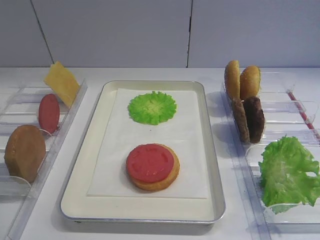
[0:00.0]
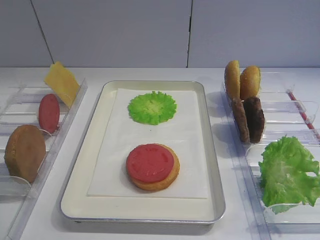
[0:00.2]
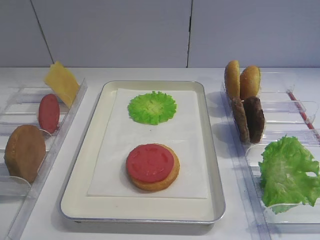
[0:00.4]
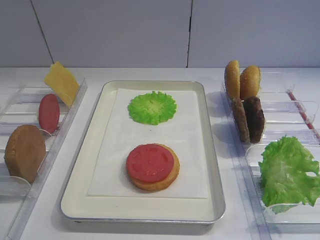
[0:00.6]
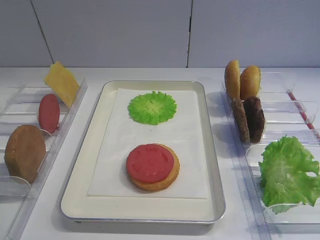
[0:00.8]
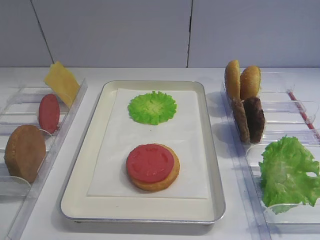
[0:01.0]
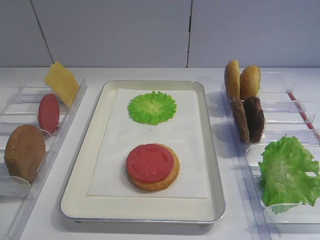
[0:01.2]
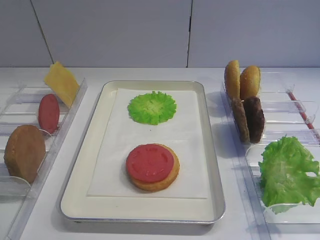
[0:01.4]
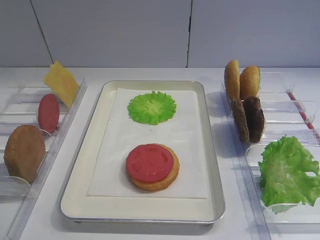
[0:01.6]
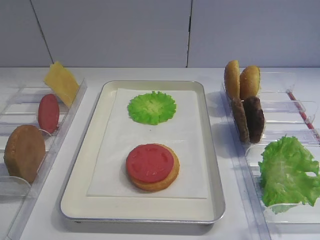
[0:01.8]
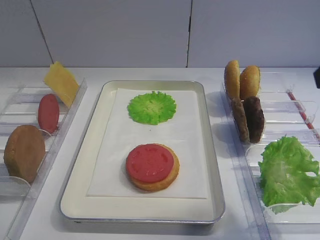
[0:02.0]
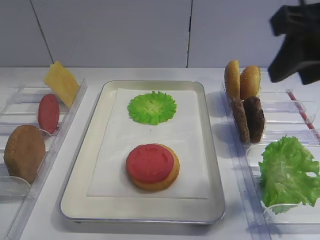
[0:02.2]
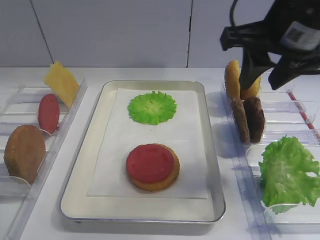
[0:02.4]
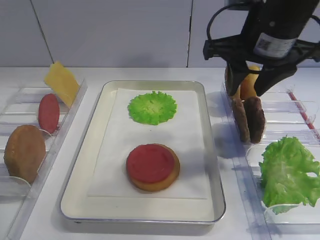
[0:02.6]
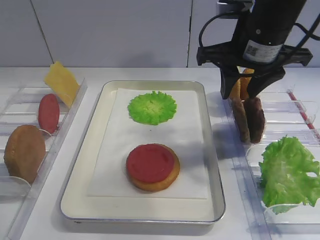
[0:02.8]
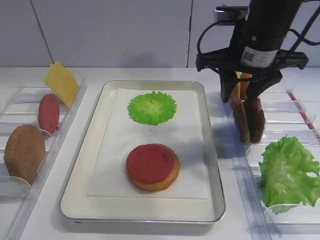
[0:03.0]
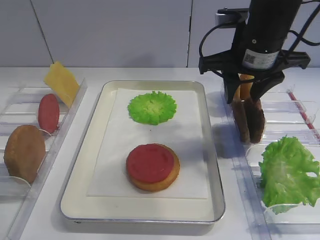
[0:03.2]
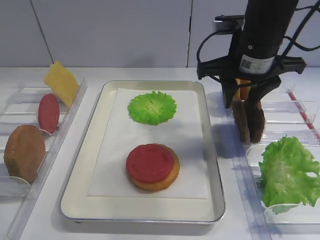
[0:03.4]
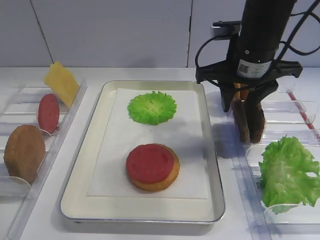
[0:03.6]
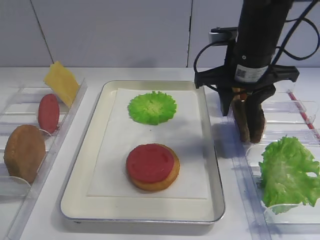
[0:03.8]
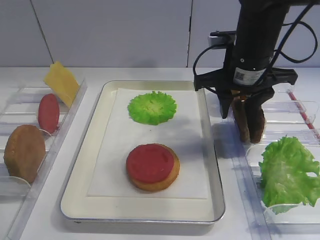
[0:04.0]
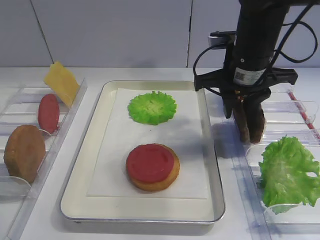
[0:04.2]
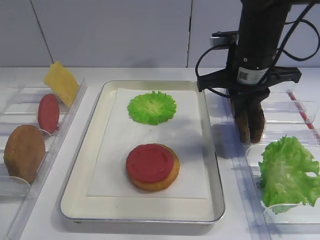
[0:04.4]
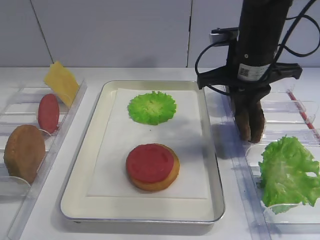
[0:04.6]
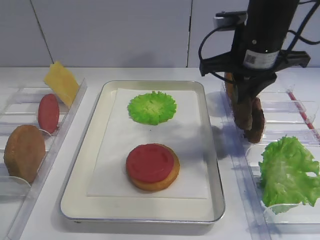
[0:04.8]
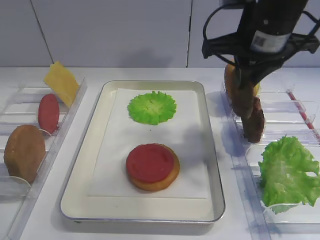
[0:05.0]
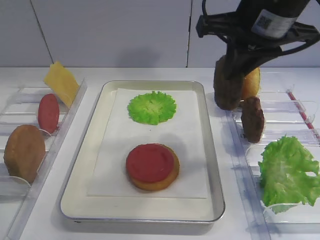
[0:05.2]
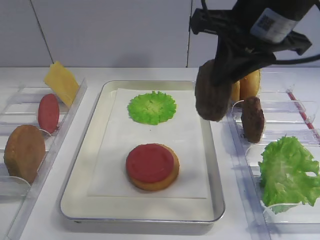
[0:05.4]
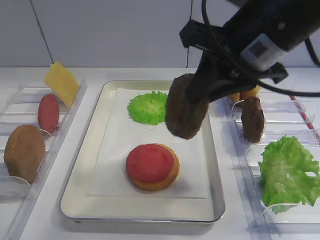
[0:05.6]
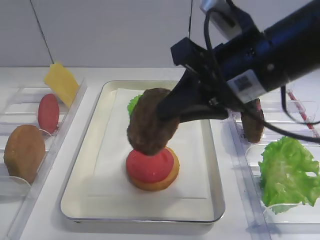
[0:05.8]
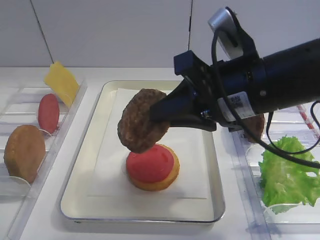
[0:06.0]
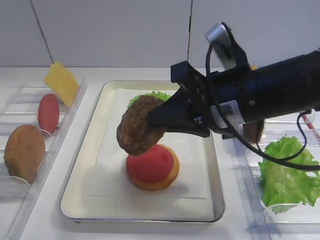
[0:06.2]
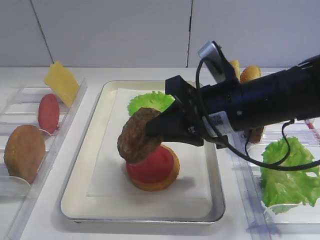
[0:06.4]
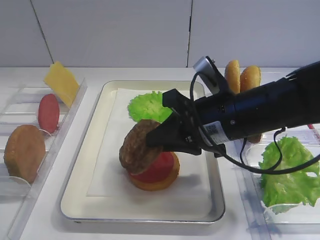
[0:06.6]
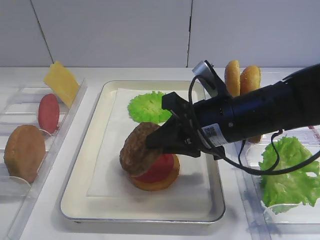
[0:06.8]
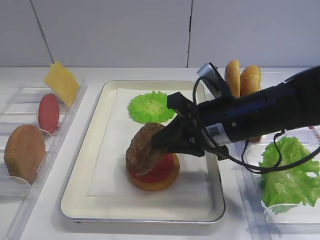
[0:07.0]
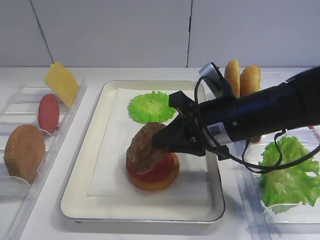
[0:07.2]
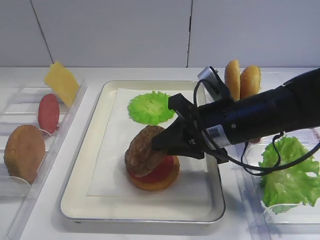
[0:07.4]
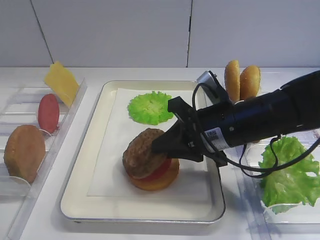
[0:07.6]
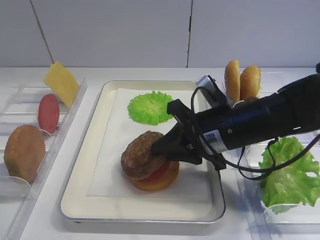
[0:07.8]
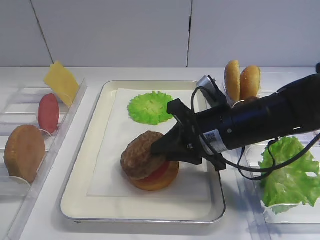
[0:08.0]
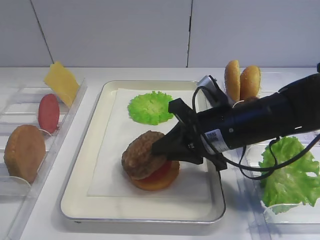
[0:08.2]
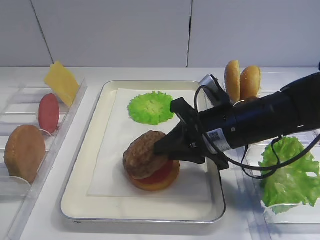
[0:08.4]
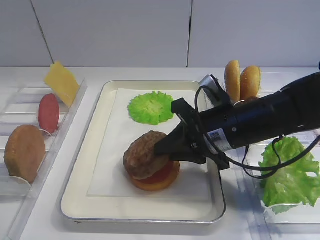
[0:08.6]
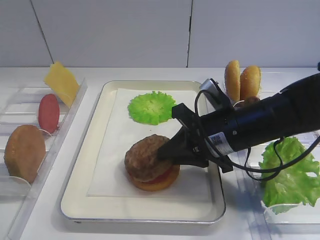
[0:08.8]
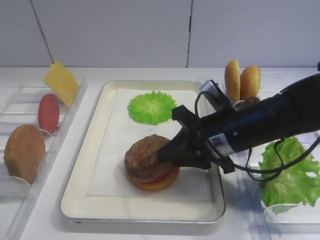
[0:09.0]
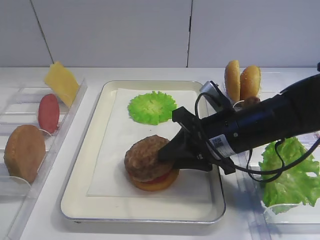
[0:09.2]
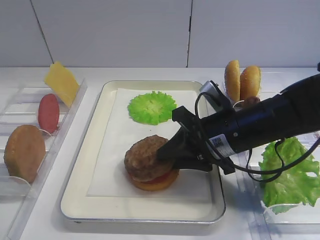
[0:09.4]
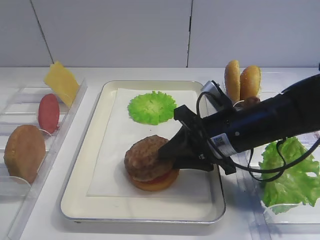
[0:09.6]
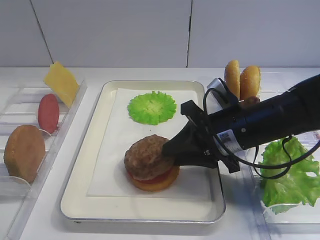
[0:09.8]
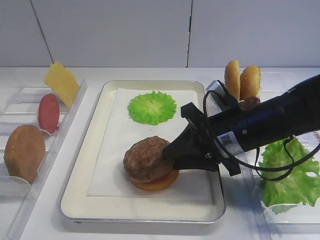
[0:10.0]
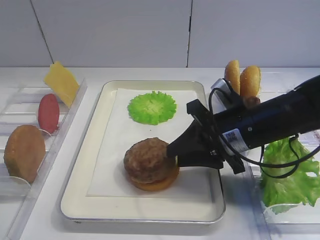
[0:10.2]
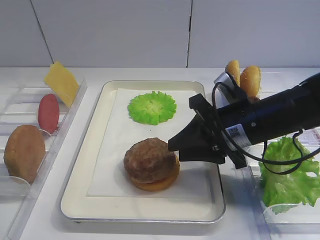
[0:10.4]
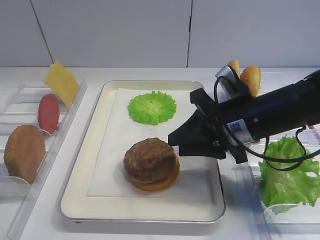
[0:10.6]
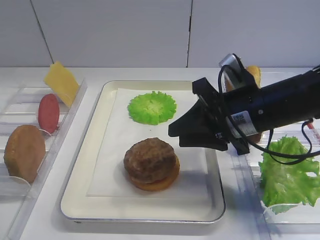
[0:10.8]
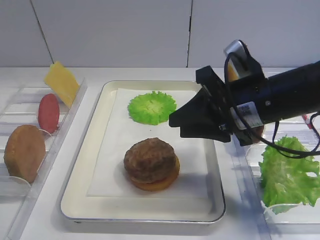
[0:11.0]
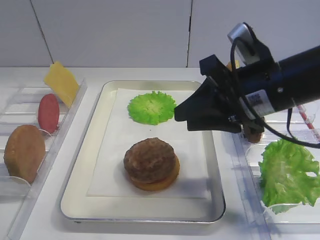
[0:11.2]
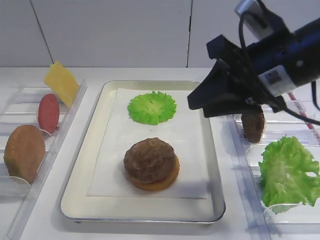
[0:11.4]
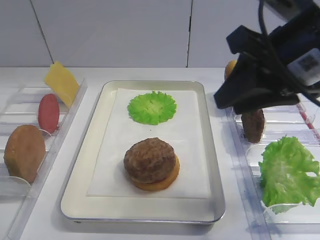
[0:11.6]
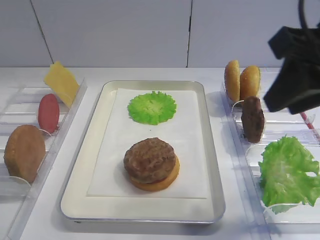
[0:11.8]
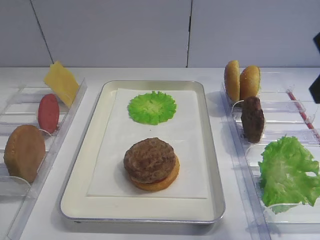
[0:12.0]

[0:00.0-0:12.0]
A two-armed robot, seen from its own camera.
Step, 0:00.0 to 0:04.4: Pick up the cutlet with the right gripper.
Step, 0:04.6 to 0:10.2: Place the cutlet on the tomato slice with the right gripper.
0:01.6 to 0:03.0: The right gripper is displaced forward and to the left by about 30 cm.
0:03.0 to 0:04.4: The right gripper closes its fingers.
0:04.4 to 0:06.0: The right gripper travels backward by some 10 cm.
0:06.0 to 0:07.6: The right gripper travels downward by roughly 10 cm.
0:07.6 to 0:10.4: The grippers move only a little.
0:10.4 to 0:12.0: The right gripper heads upward, backward and to the right, covering some 20 cm.

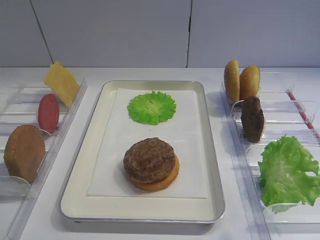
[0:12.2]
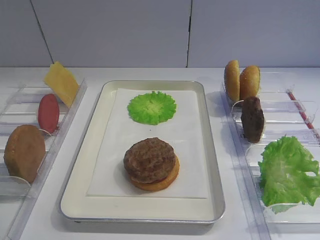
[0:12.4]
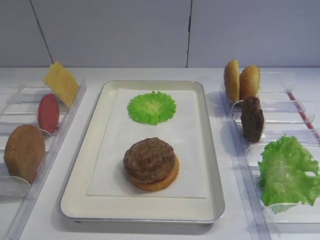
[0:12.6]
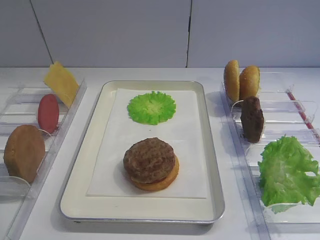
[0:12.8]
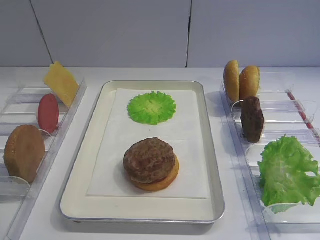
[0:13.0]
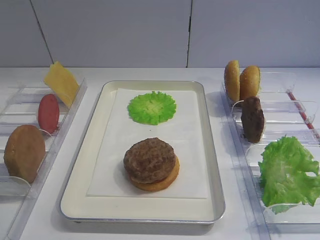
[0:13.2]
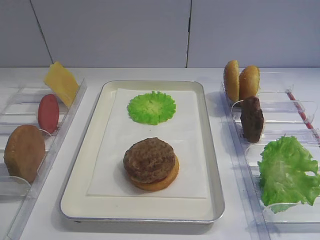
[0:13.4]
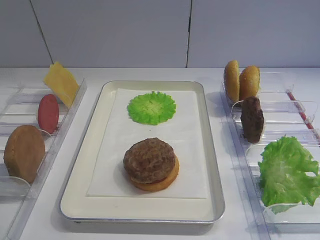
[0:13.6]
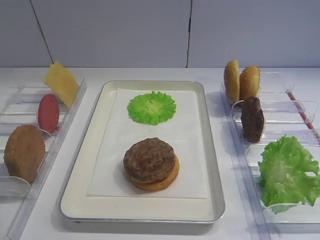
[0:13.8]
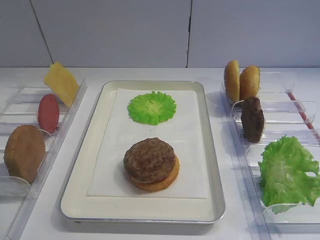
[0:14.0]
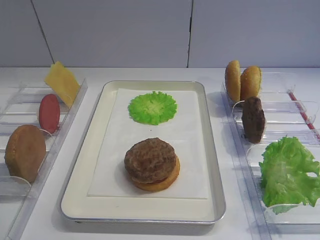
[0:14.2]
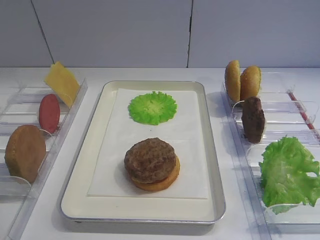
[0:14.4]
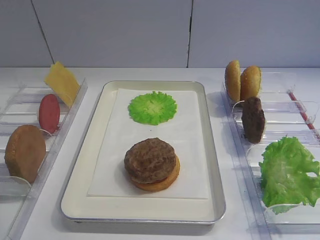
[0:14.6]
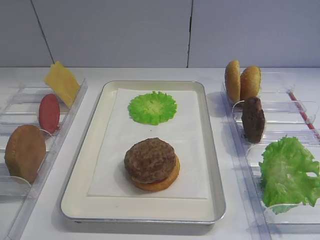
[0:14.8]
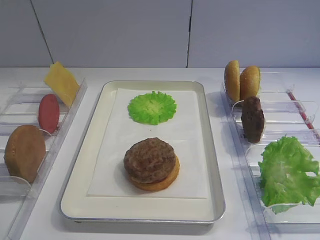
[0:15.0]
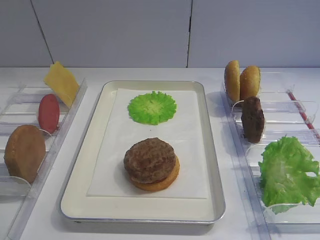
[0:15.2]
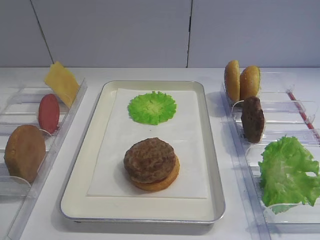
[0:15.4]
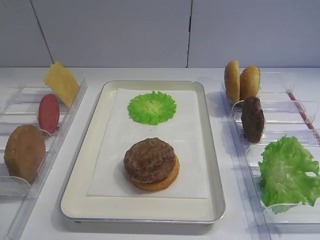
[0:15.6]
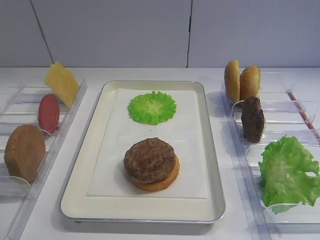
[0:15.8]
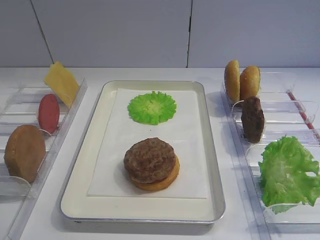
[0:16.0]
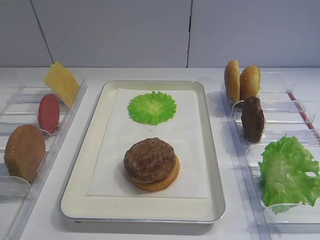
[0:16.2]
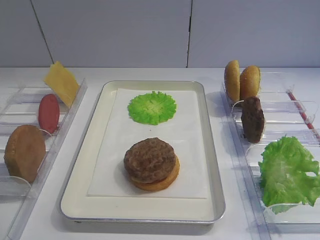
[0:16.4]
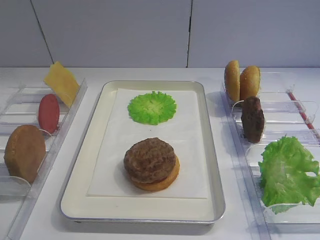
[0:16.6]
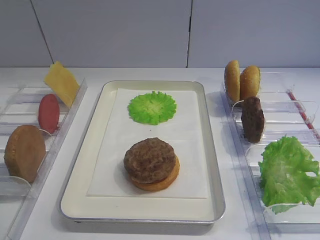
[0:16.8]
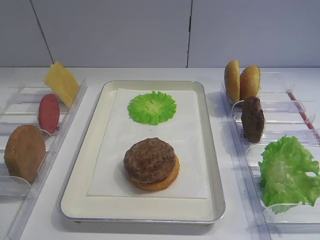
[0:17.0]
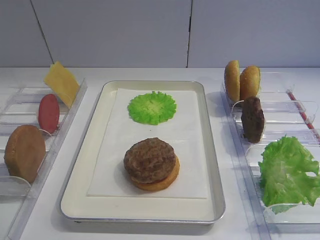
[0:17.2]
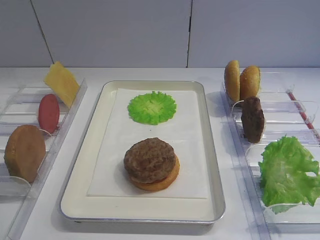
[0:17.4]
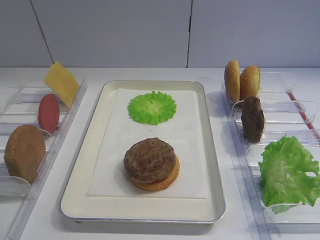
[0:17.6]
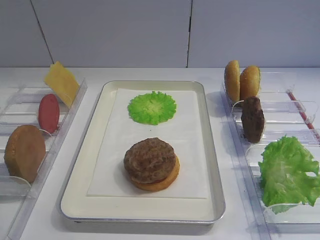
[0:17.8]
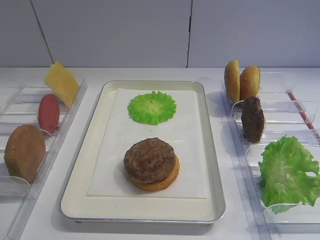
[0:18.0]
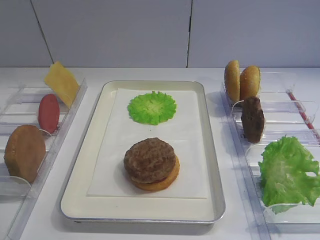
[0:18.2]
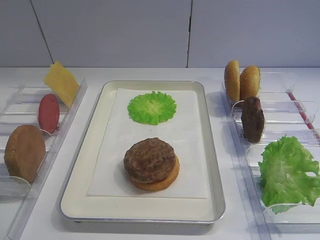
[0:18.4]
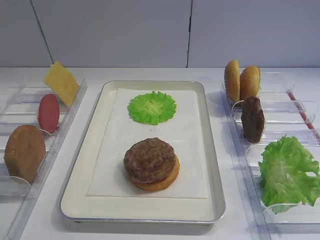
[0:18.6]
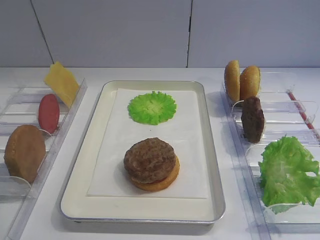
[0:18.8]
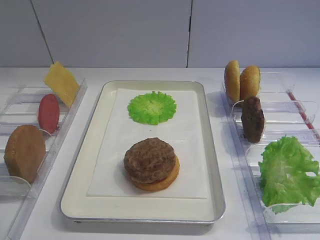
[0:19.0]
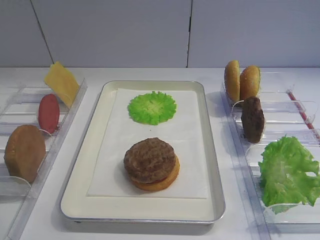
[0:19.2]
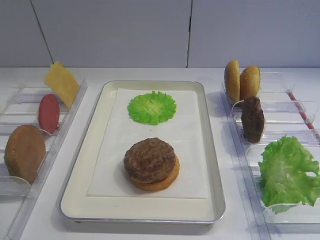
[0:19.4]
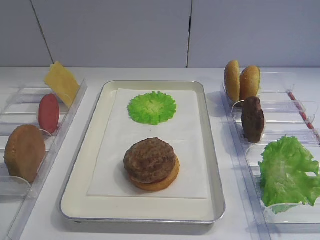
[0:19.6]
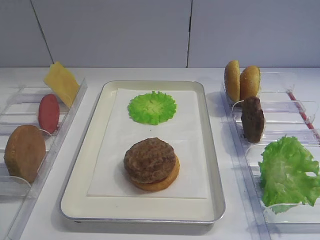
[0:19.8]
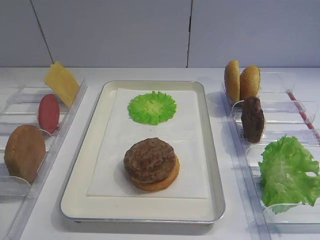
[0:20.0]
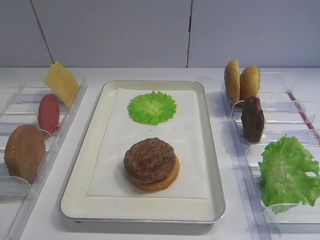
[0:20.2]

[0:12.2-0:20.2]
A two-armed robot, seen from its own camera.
0:17.0 to 0:20.2: Both grippers stay put.

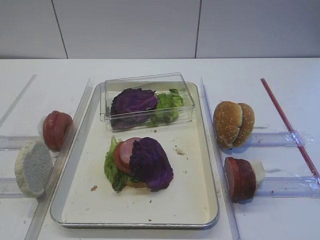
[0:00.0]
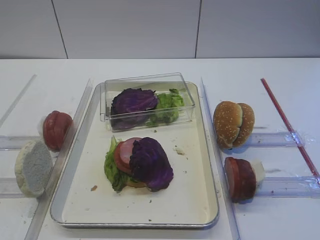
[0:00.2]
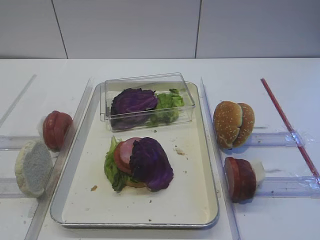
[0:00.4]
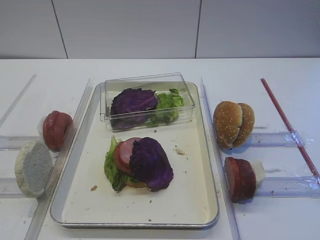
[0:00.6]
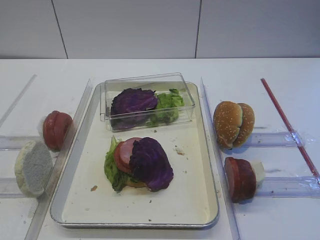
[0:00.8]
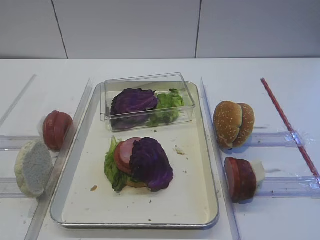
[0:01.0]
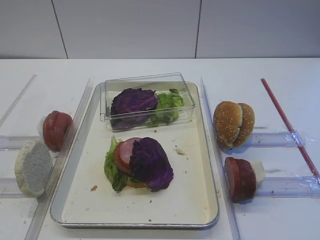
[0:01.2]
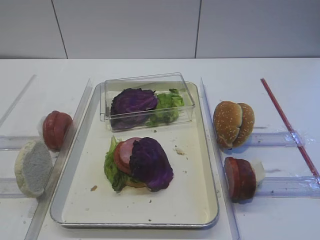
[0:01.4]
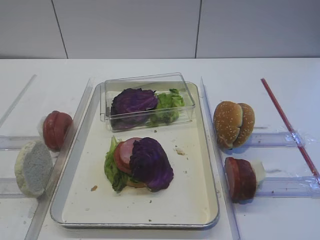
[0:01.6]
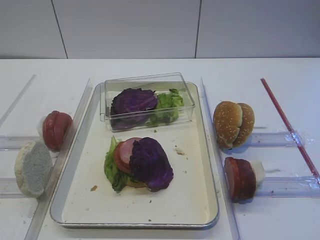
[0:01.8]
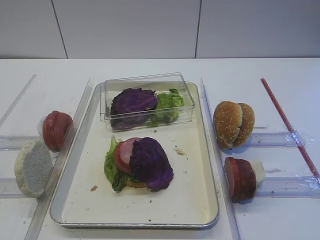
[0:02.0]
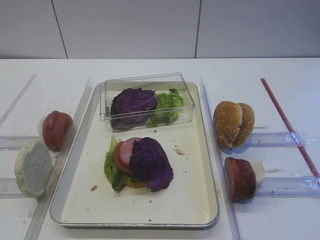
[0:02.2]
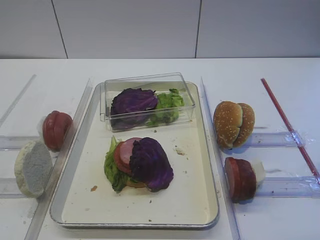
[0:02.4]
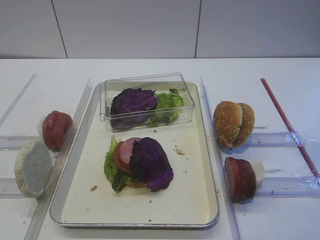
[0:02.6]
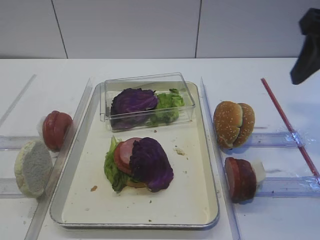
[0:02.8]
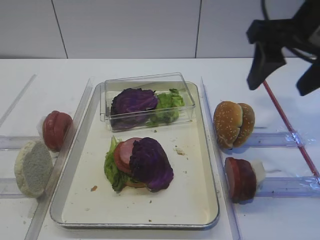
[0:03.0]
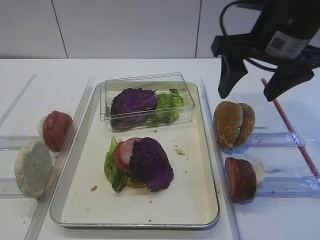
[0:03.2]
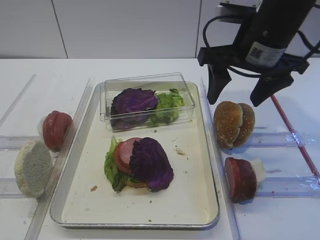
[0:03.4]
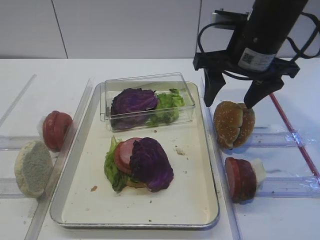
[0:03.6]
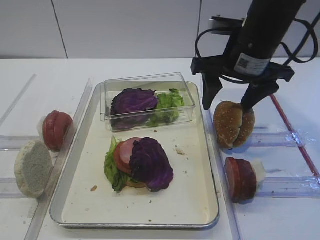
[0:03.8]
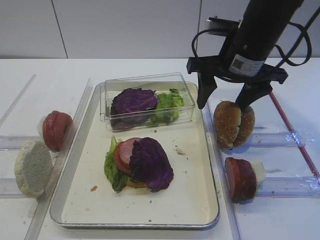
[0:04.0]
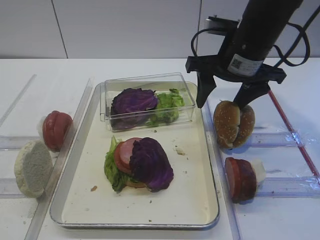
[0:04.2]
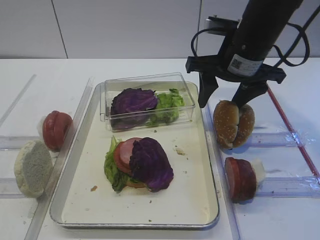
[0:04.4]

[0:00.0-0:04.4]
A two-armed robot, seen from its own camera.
0:01.4 to 0:03.0: The right gripper moves forward, approximately 25 cm, and opens its fingers.
0:03.0 to 0:04.4: The right gripper is displaced forward, downward and to the left by approximately 15 cm.
